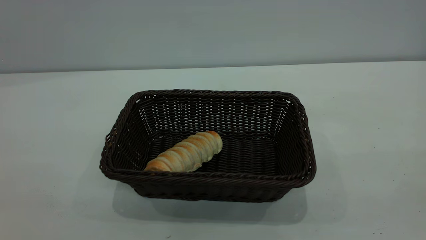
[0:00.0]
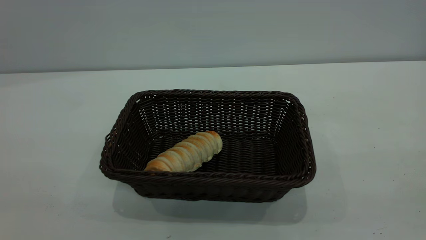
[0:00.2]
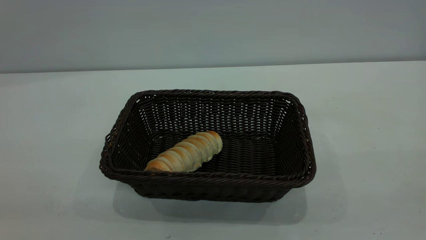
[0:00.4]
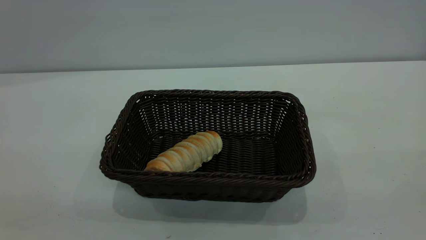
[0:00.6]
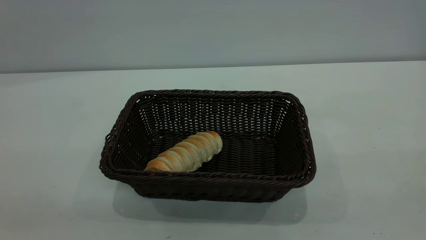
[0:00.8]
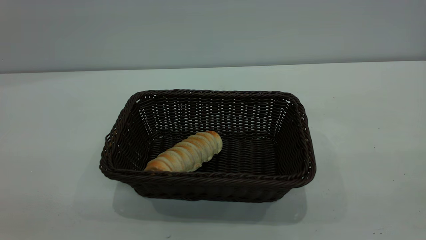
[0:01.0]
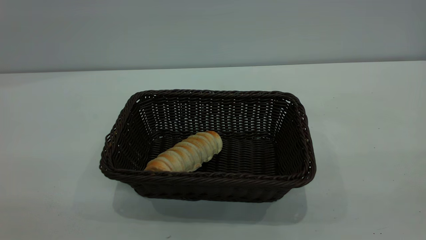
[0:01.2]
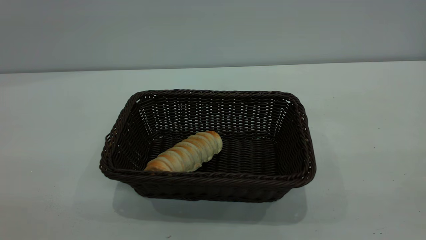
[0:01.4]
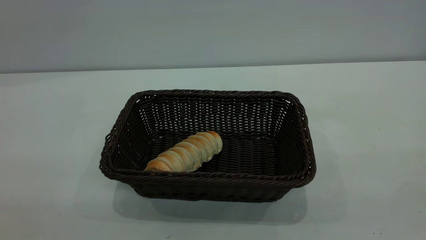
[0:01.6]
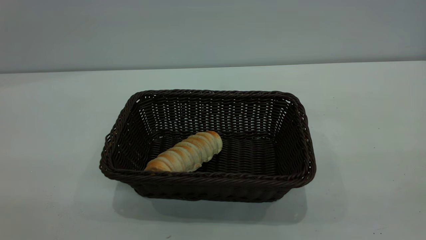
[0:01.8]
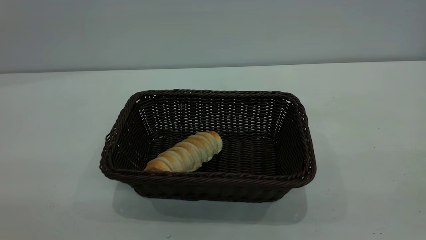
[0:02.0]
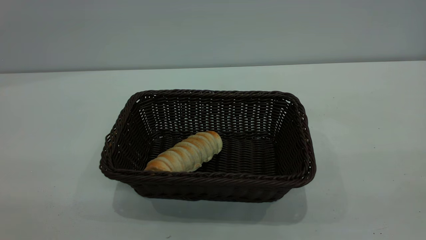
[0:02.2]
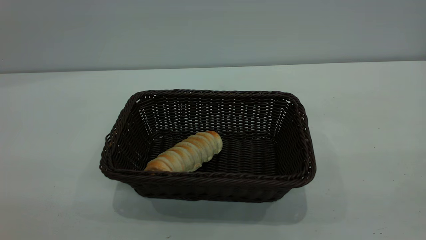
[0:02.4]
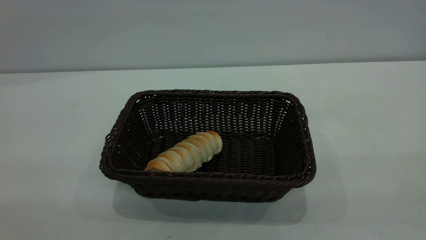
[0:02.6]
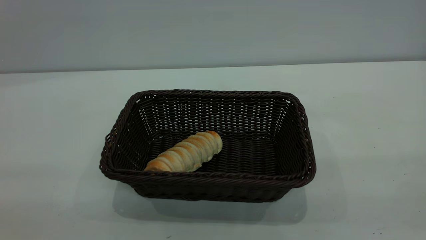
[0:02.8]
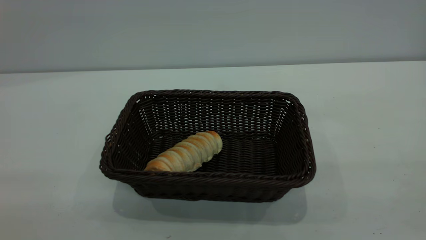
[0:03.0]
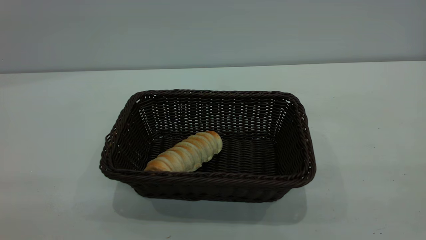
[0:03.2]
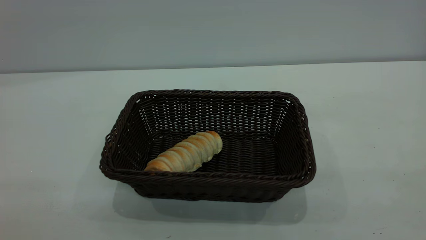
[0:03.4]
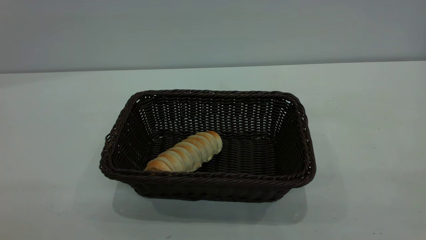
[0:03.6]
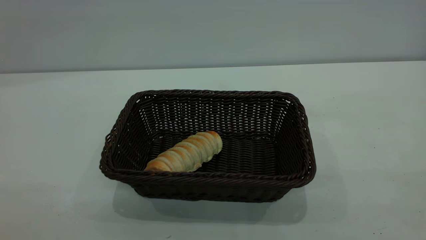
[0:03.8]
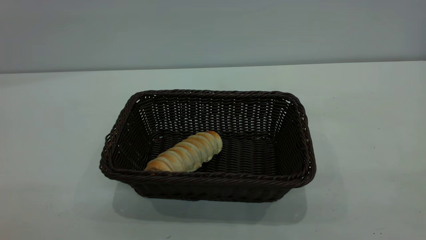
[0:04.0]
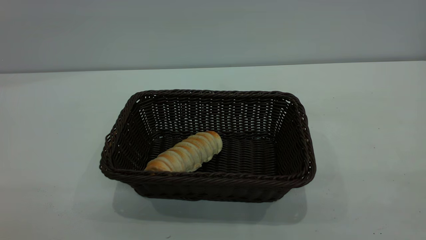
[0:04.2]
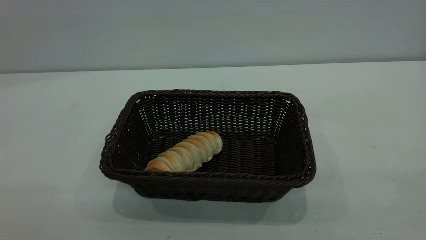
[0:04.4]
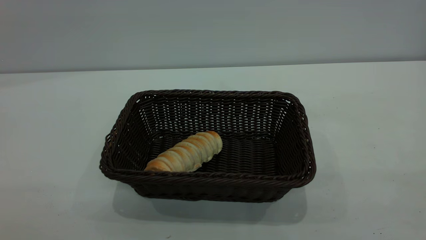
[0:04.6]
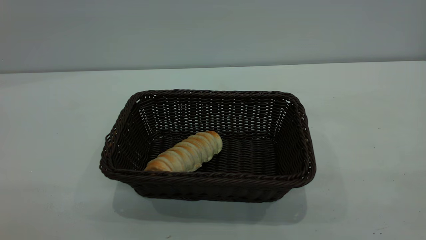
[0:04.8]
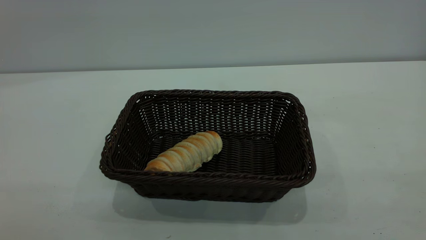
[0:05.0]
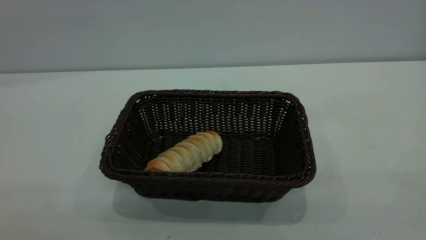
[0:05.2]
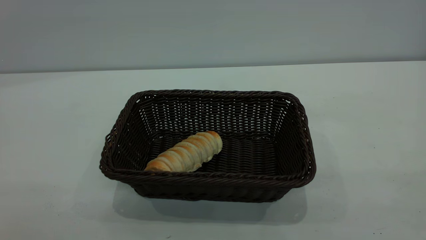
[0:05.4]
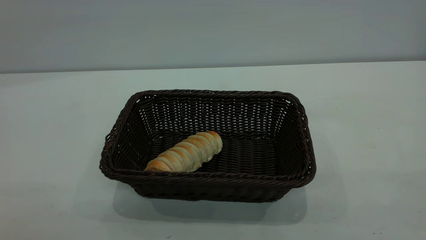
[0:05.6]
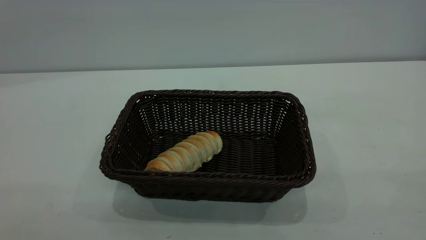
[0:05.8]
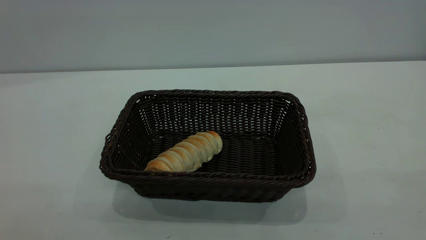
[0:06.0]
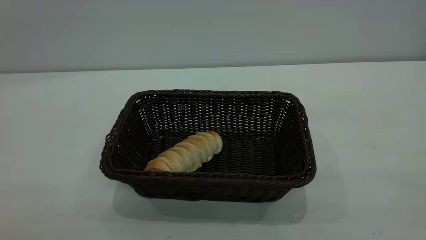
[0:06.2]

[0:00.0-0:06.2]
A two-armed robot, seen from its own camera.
Task of the whole recording: One hand grasps the black basket and places it in the middle of the table, while the other hand picks up the long bread and puts it into the black basket.
0:03.2 to 0:04.6: Both grippers stay put.
